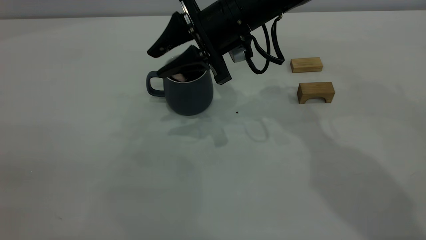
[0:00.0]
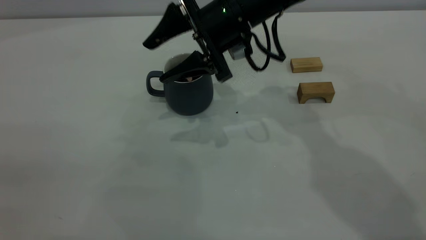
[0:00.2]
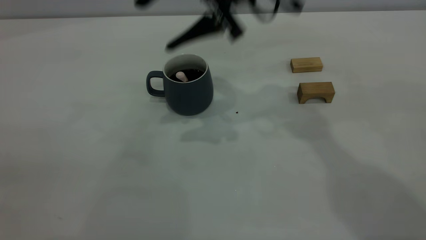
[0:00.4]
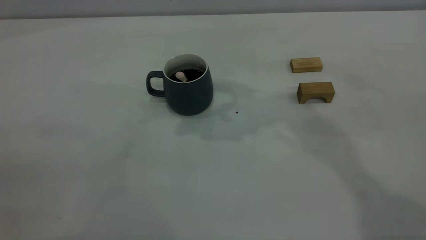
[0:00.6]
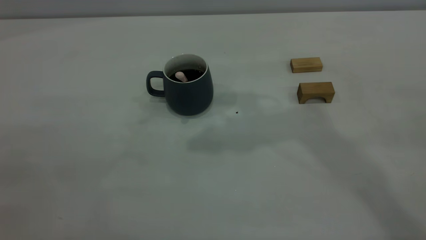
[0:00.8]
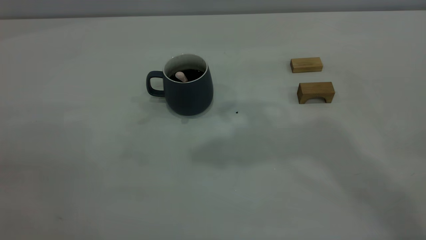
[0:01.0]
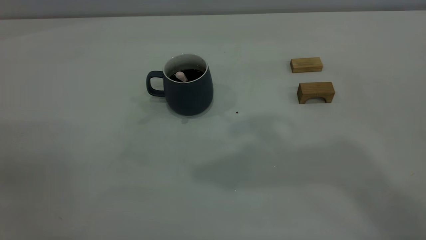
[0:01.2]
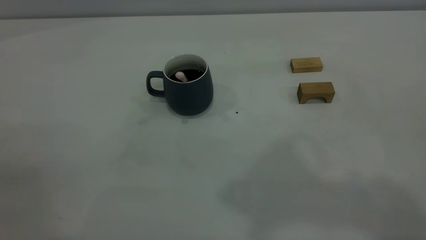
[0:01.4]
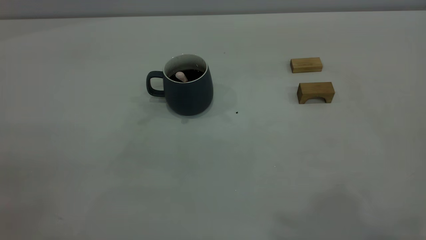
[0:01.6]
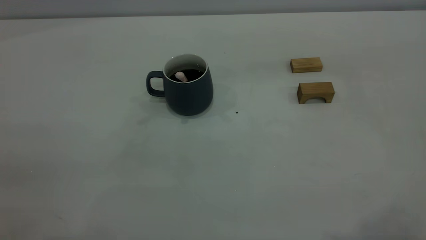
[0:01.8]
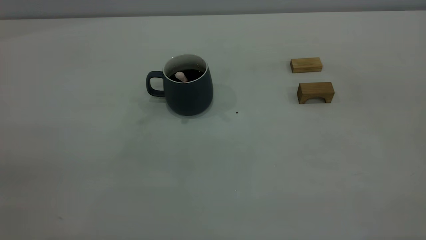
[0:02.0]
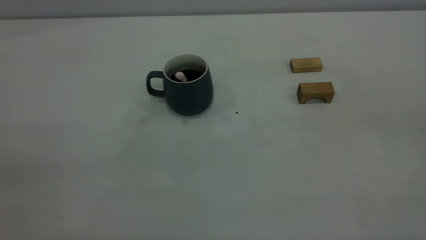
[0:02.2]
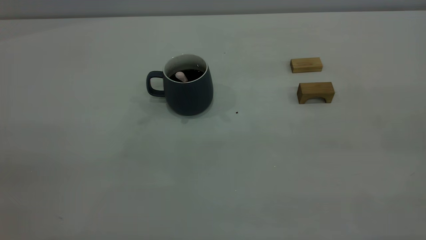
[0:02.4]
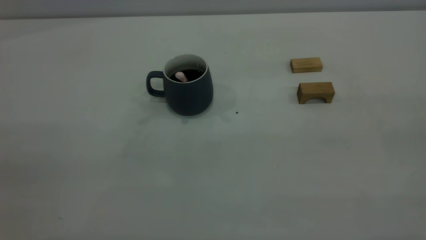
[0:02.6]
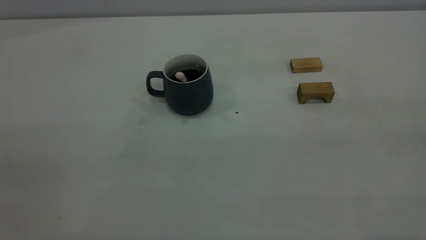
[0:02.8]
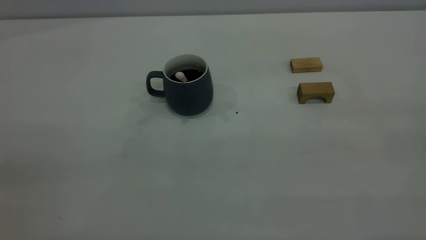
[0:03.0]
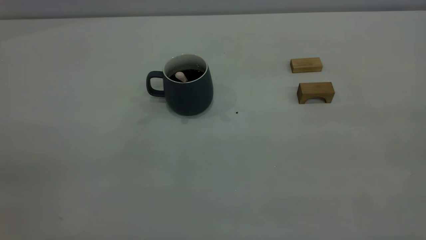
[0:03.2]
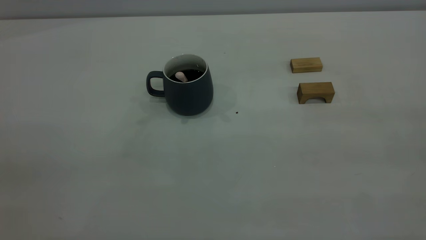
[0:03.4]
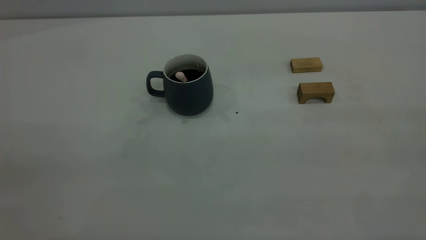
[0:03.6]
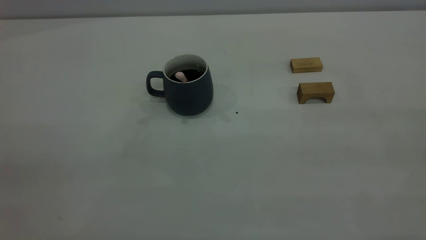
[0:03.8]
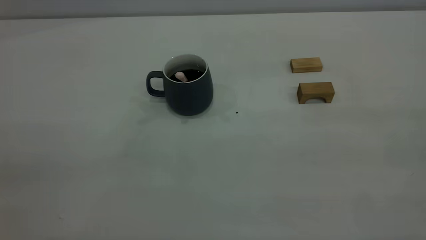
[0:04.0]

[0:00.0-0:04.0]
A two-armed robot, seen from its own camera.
0:00.0 to 0:01.4: The right gripper shifts roughly 50 cm upward and backward, and closes up.

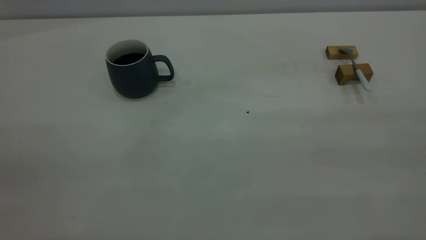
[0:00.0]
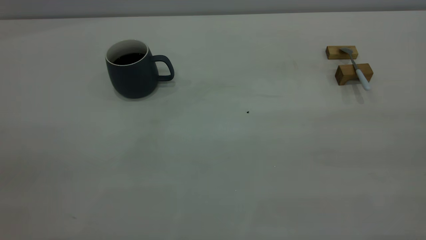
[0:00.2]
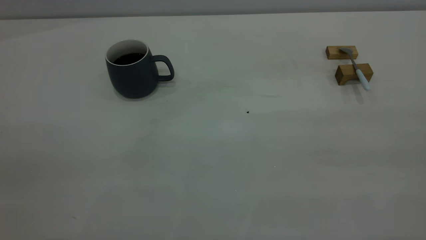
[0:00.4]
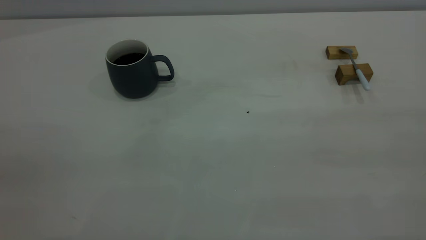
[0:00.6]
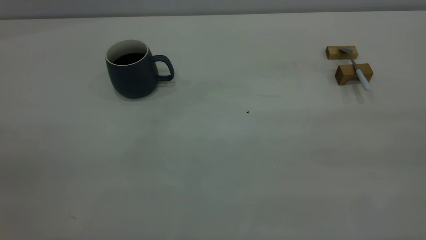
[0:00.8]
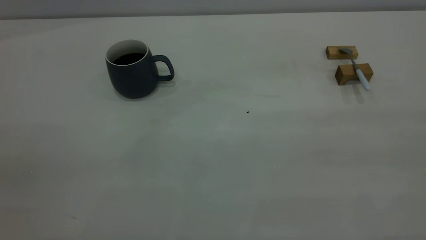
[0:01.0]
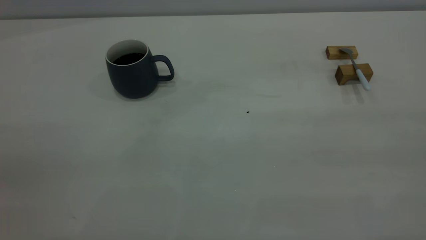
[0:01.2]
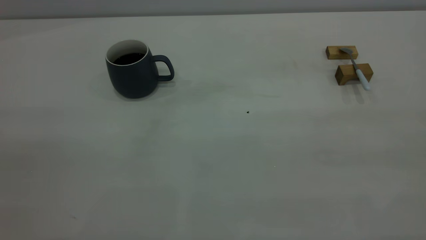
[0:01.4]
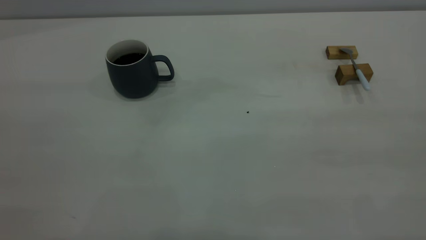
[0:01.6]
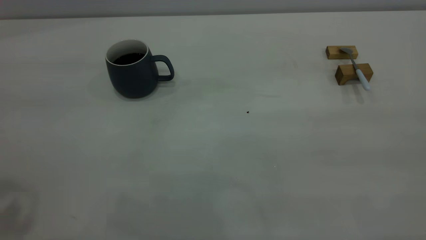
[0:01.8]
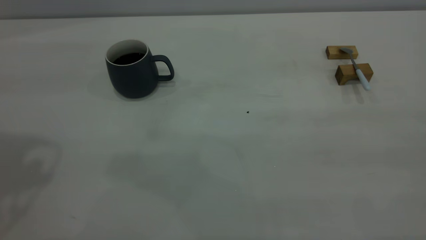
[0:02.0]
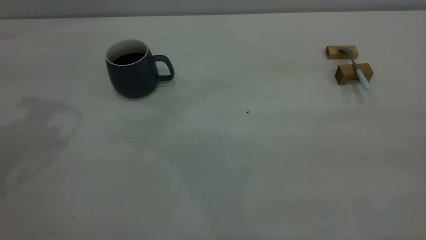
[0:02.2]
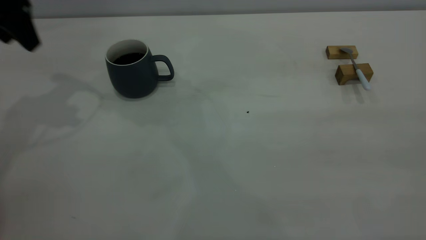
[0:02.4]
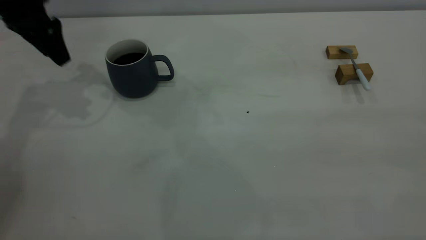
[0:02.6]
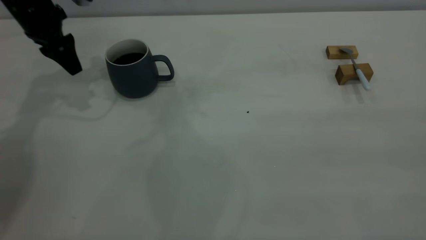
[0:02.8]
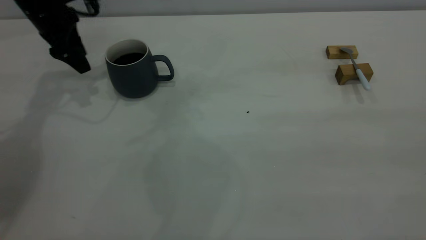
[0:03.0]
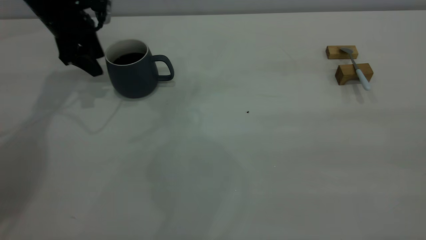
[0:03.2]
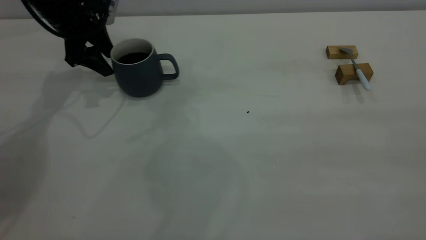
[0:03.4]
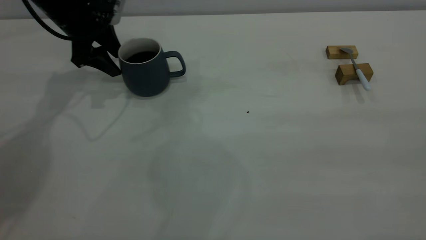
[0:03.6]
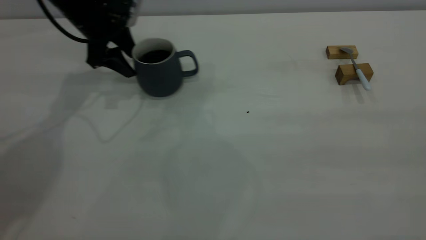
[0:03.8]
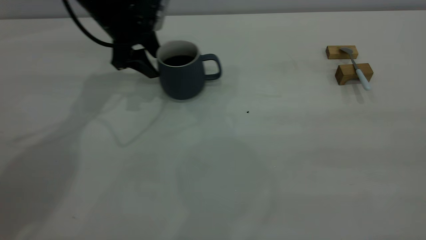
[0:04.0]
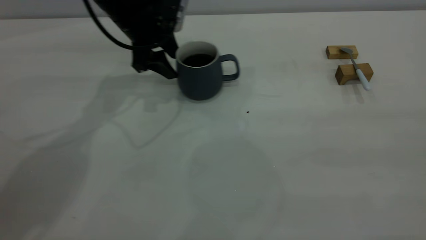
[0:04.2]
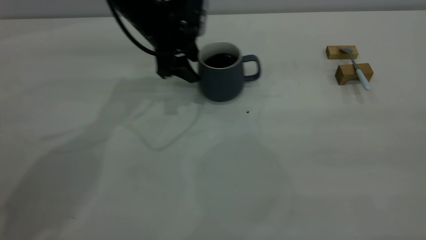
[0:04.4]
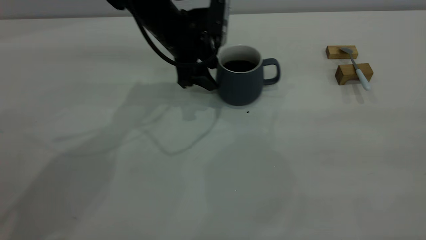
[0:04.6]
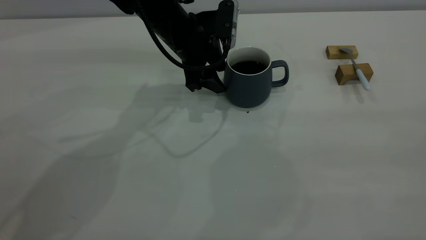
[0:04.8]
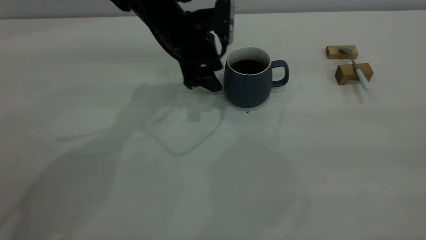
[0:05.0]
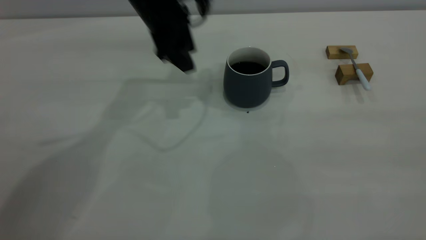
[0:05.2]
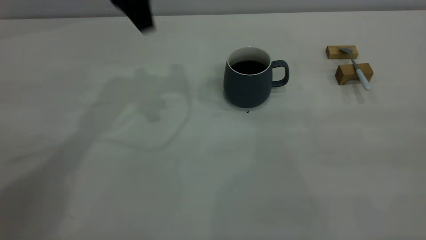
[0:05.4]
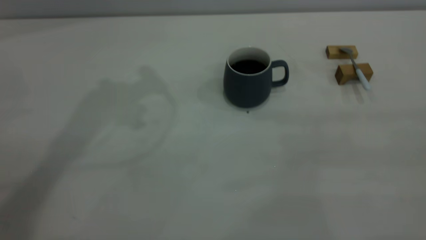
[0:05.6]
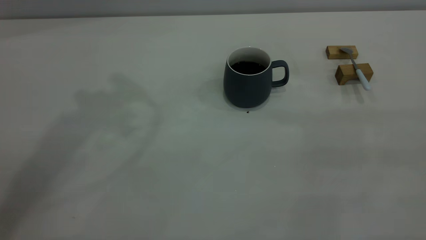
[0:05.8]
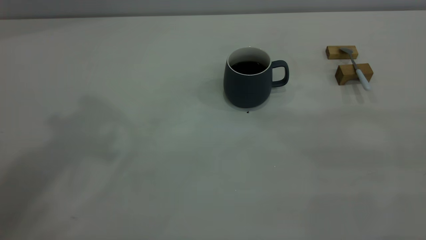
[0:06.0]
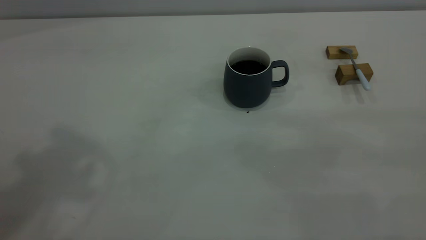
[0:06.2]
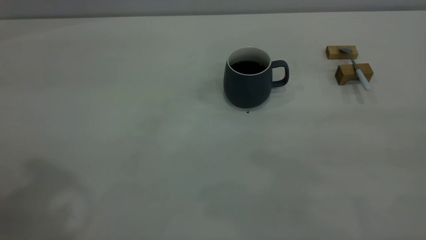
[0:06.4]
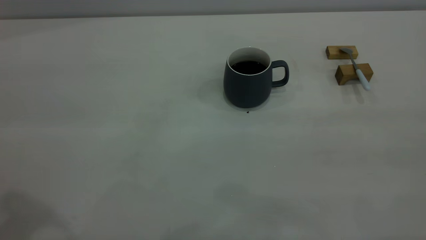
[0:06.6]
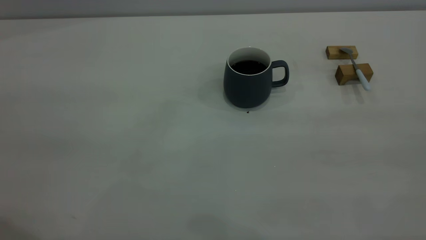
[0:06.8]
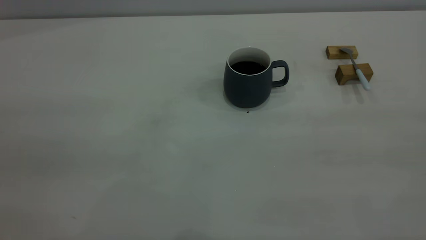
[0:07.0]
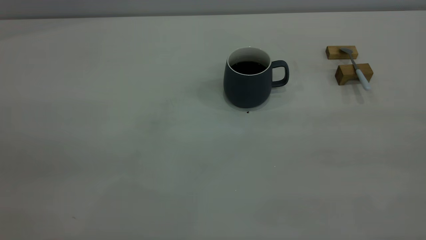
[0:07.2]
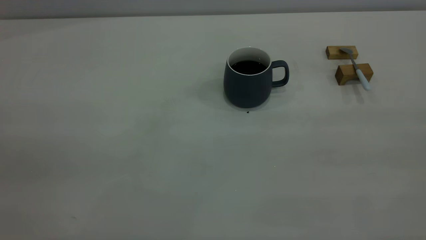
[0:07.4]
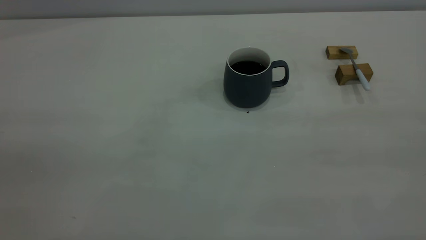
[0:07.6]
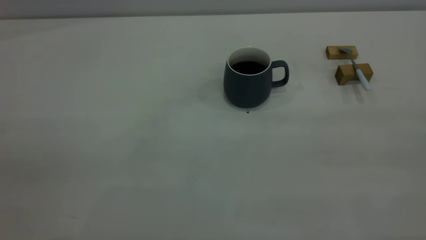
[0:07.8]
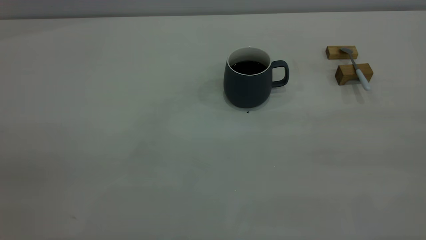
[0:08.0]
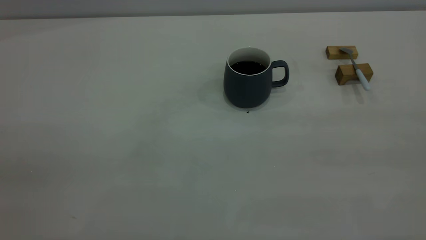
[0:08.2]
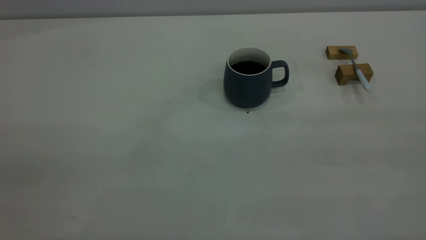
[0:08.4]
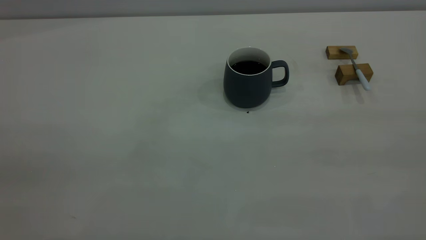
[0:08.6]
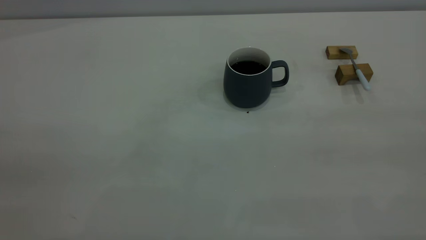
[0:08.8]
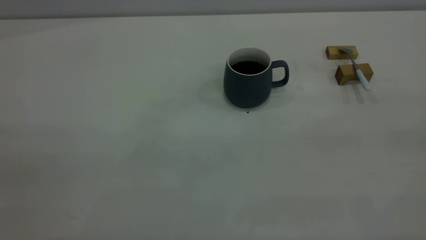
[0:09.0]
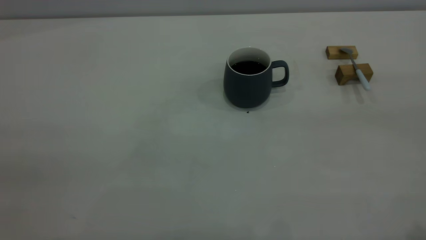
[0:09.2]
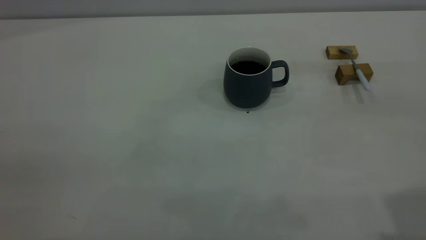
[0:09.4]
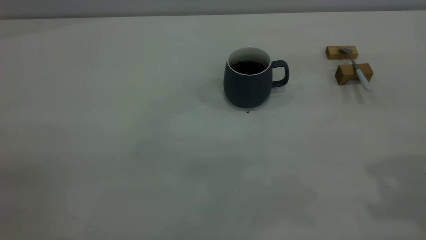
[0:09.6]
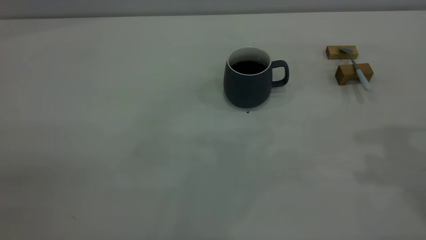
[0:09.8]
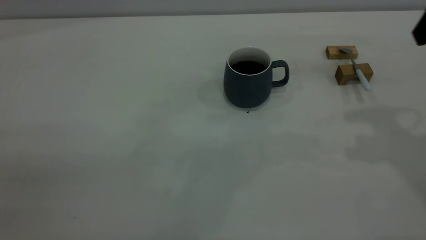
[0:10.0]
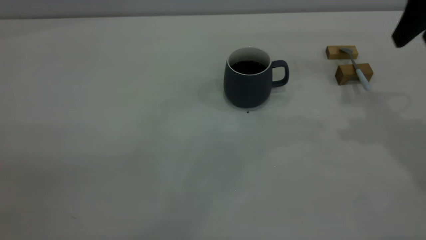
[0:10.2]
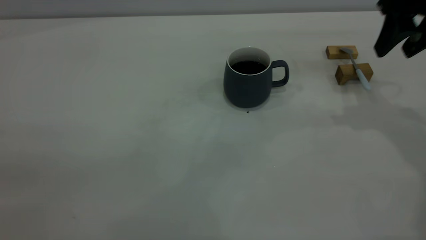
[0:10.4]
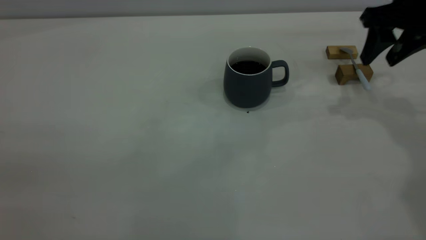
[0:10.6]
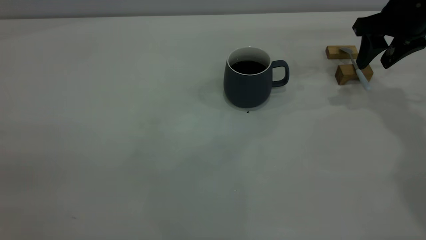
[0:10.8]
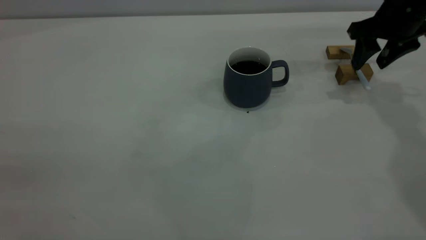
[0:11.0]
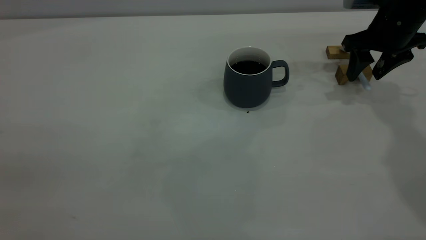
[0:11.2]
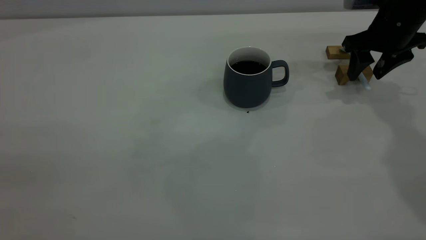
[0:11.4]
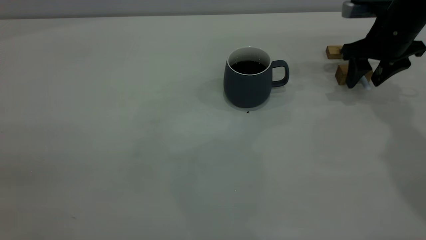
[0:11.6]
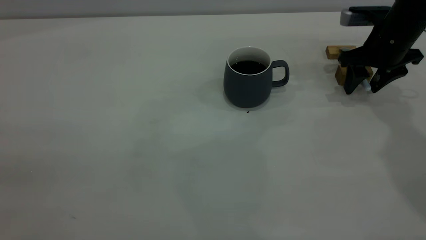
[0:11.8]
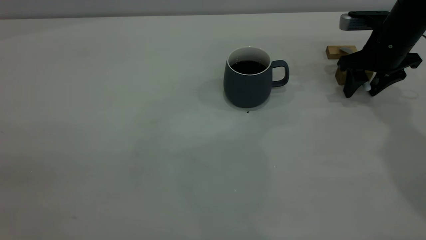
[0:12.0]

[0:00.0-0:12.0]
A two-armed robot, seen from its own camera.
Step, 0:00.0 to 0:05.0: Move the cup with coffee to the center of view.
0:01.6 to 0:03.0: The left gripper heads forward and downward, covering about 50 cm.
0:03.0 to 0:04.4: The left gripper moves to the right, roughly 20 cm.
0:04.4 to 0:06.0: The left gripper travels upward and backward by roughly 40 cm.
0:09.0 to 0:10.4: The right gripper heads forward and downward, covering roughly 35 cm.
0:10.4 to 0:12.0: The right gripper moves downward and forward, some 15 cm.

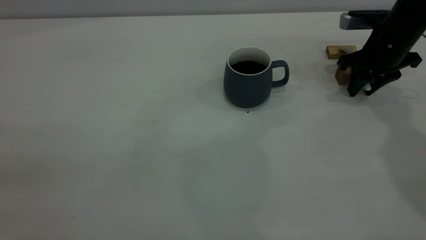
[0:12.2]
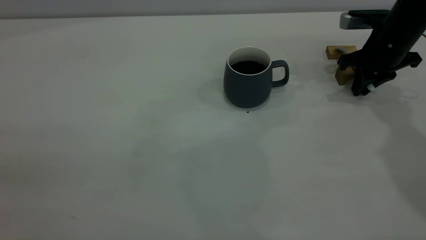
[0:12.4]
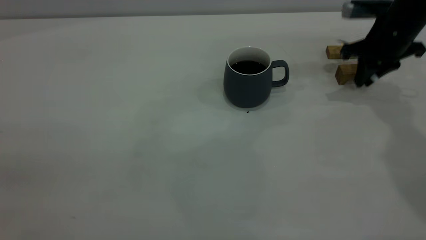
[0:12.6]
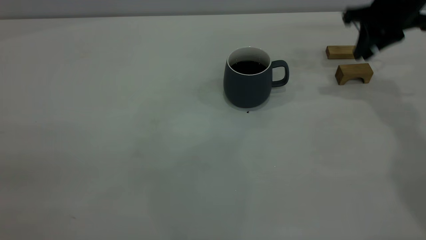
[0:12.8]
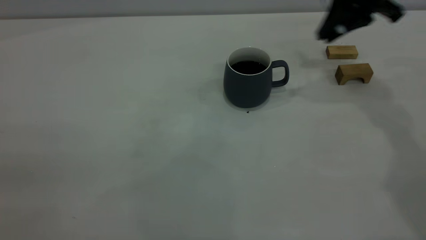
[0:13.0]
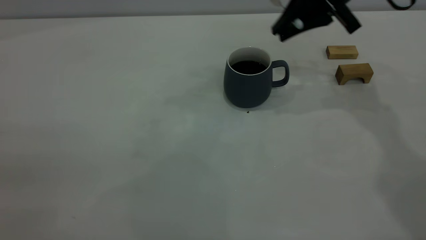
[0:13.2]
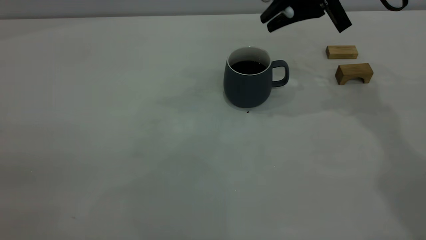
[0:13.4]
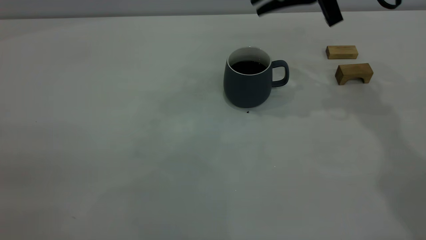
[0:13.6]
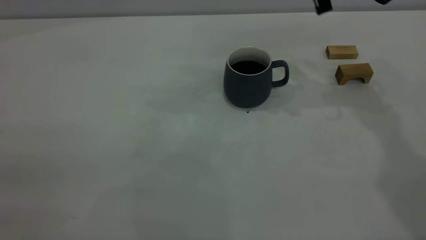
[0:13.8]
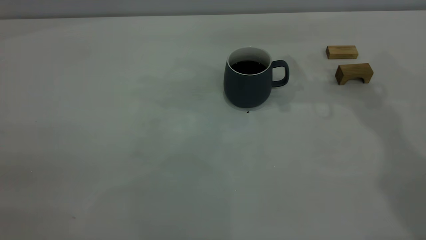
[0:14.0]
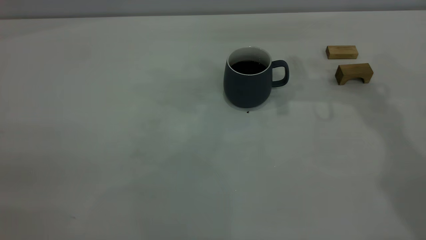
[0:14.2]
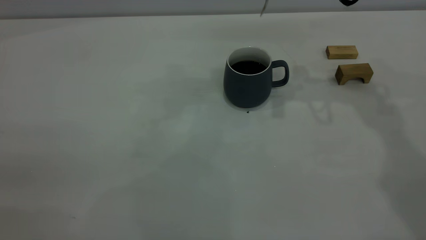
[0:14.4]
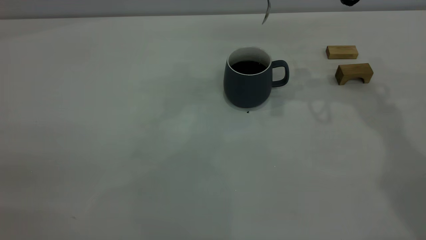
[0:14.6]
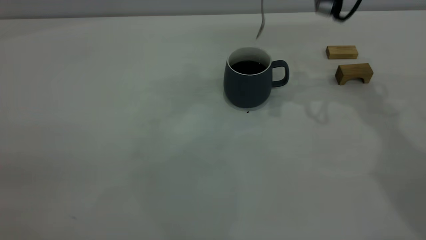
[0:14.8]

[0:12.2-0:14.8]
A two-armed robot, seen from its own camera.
0:12.2 to 0:13.4: The right gripper travels upward and to the left by roughly 15 cm.
